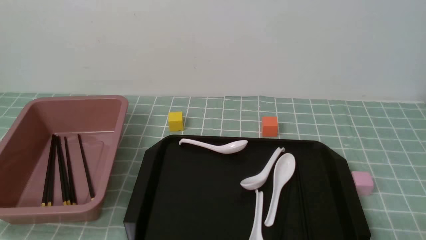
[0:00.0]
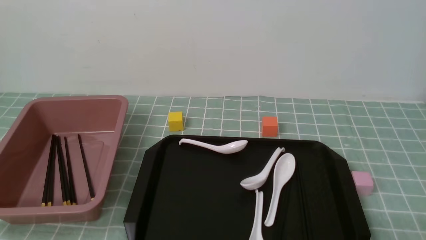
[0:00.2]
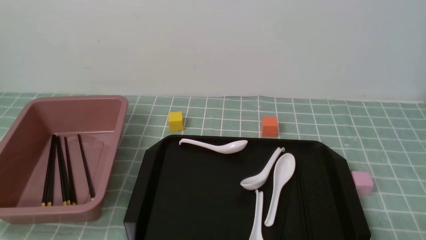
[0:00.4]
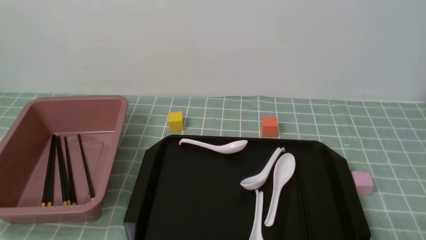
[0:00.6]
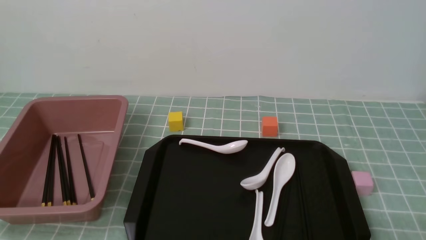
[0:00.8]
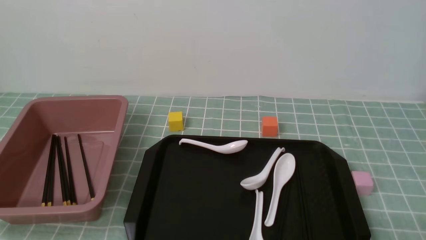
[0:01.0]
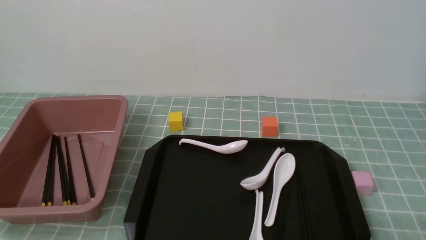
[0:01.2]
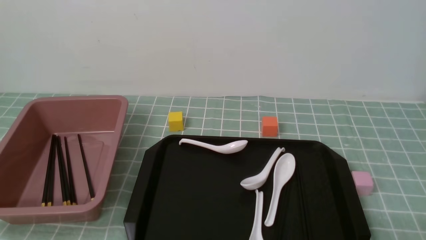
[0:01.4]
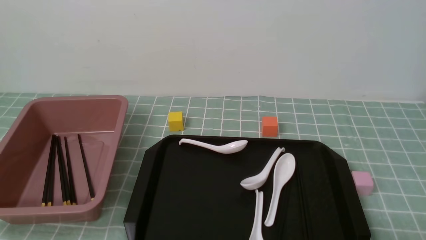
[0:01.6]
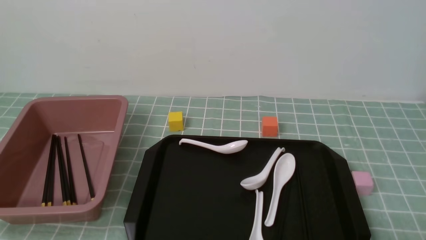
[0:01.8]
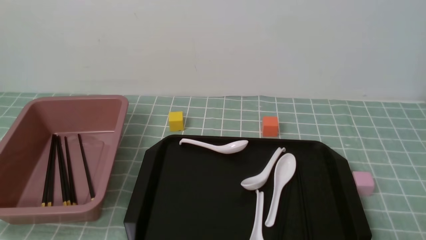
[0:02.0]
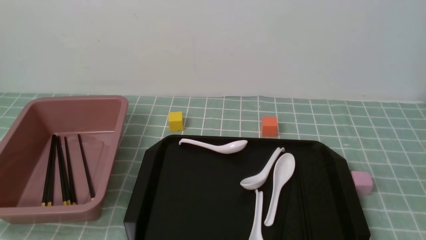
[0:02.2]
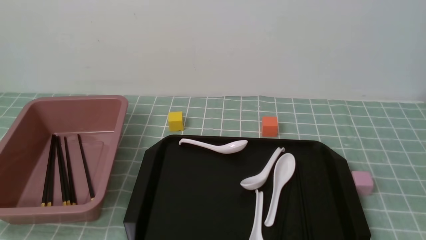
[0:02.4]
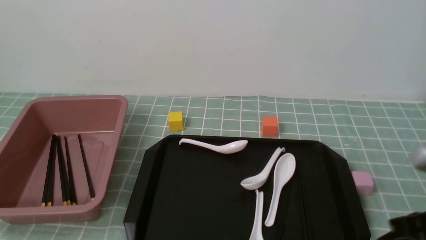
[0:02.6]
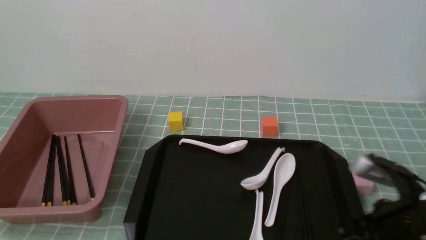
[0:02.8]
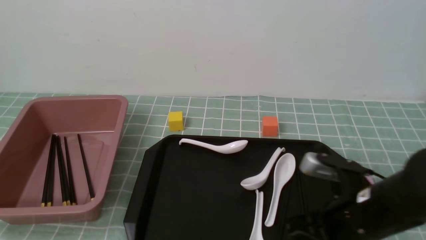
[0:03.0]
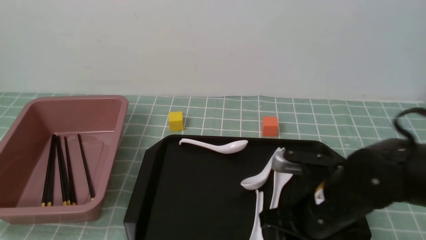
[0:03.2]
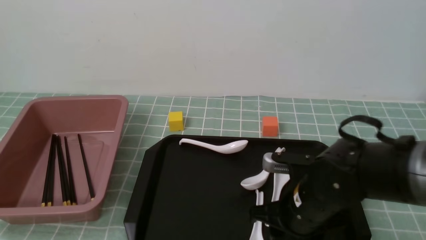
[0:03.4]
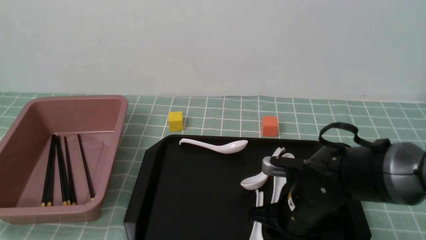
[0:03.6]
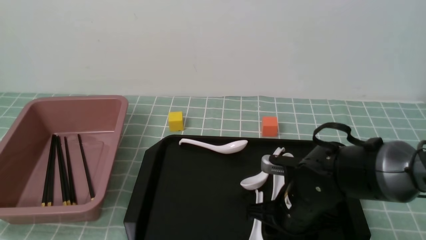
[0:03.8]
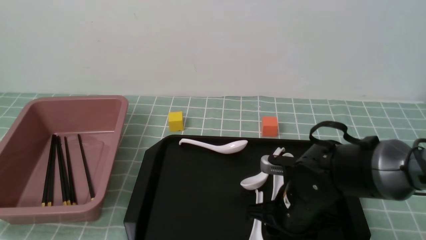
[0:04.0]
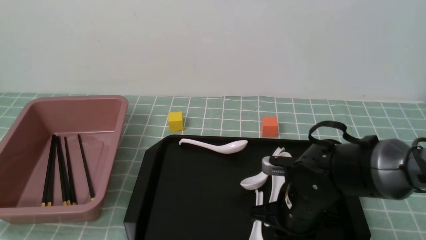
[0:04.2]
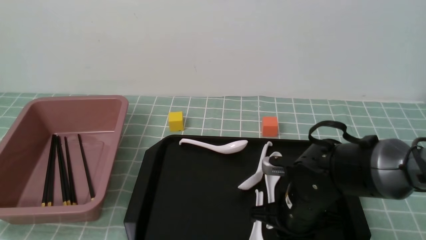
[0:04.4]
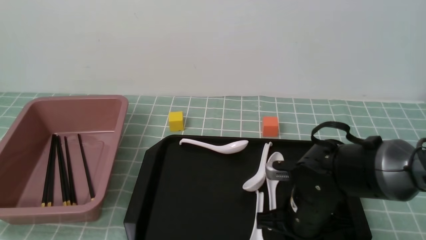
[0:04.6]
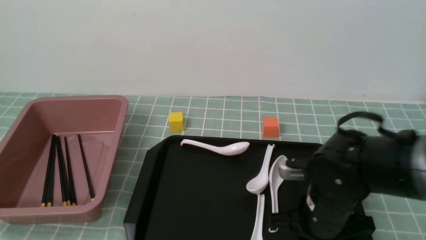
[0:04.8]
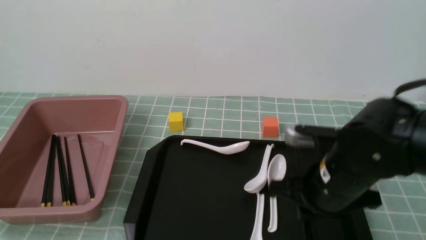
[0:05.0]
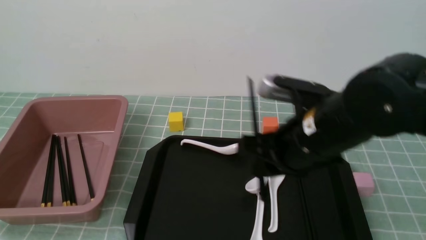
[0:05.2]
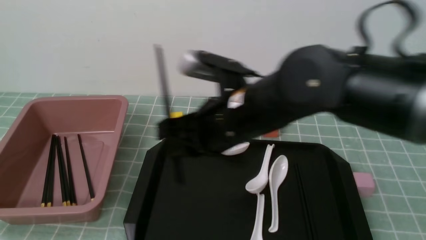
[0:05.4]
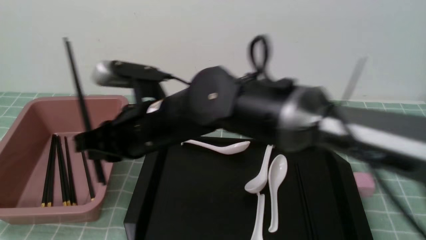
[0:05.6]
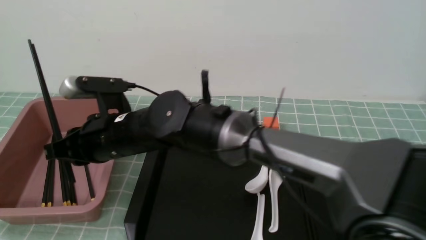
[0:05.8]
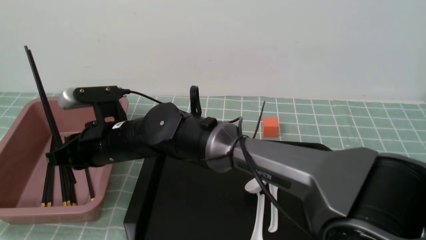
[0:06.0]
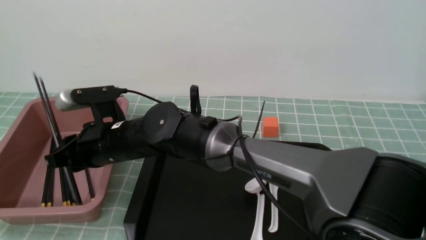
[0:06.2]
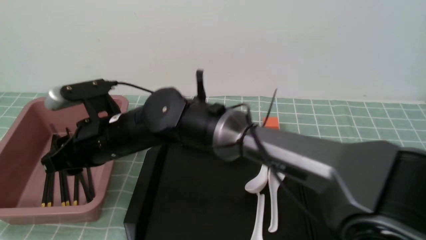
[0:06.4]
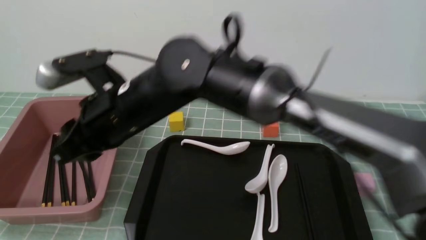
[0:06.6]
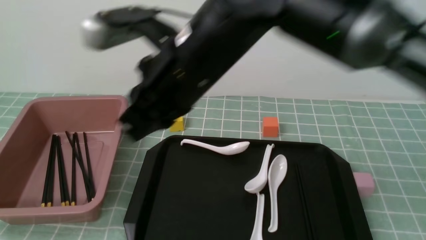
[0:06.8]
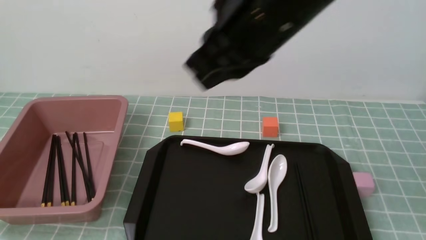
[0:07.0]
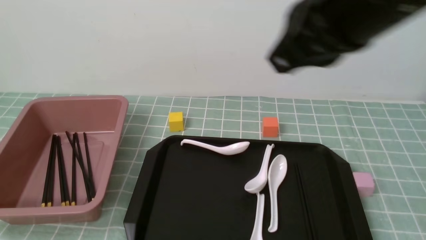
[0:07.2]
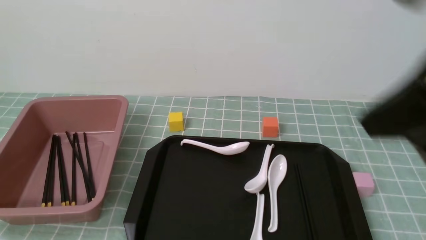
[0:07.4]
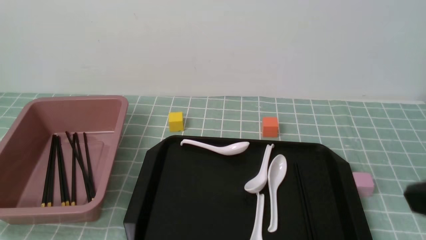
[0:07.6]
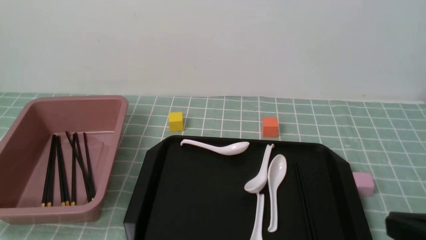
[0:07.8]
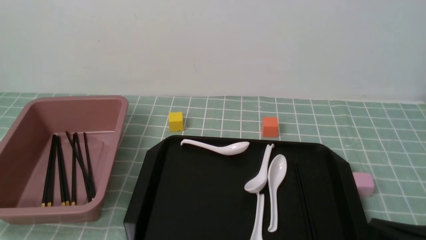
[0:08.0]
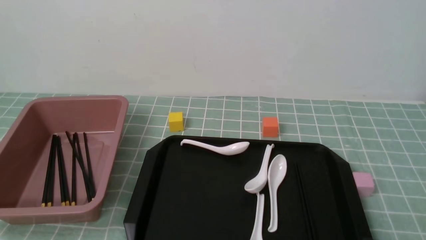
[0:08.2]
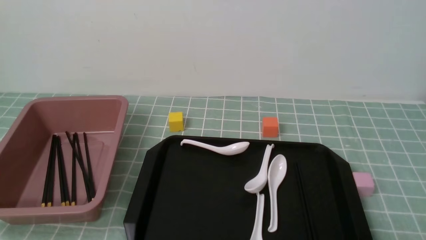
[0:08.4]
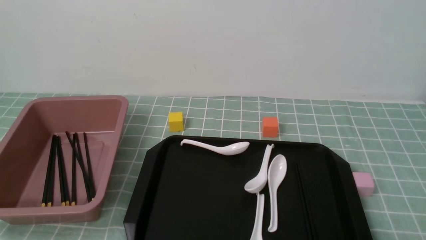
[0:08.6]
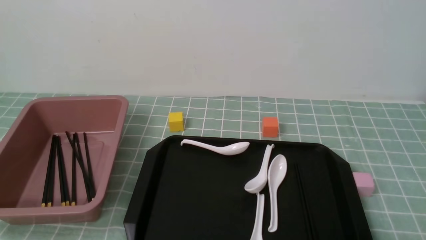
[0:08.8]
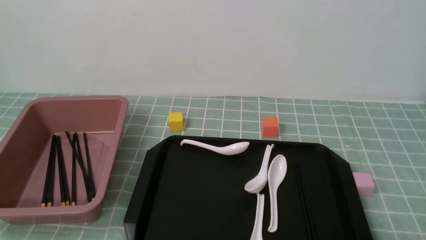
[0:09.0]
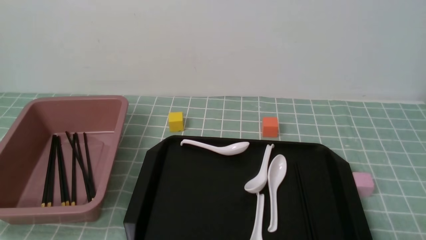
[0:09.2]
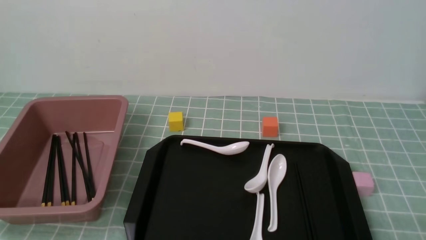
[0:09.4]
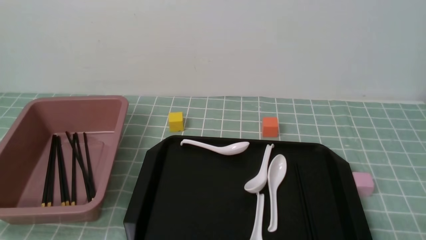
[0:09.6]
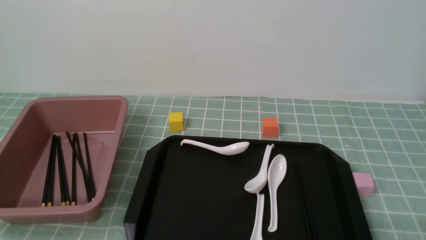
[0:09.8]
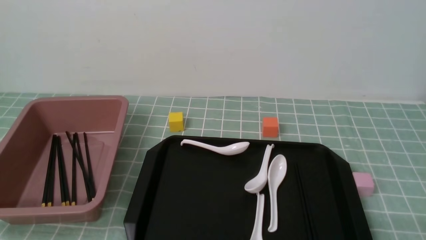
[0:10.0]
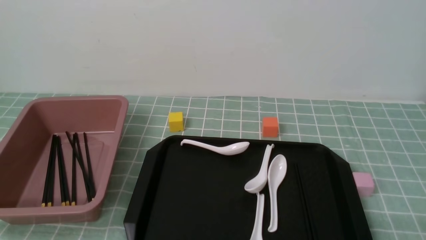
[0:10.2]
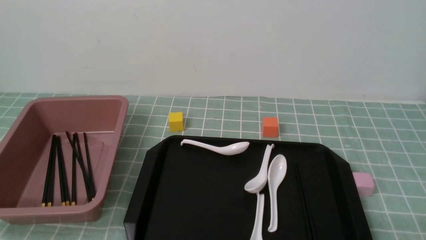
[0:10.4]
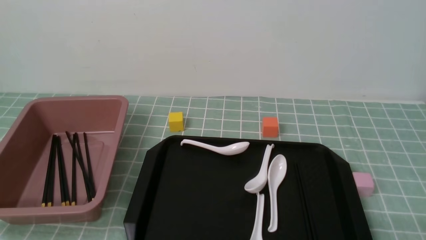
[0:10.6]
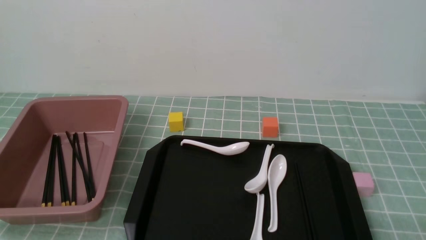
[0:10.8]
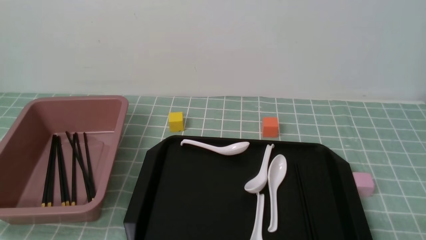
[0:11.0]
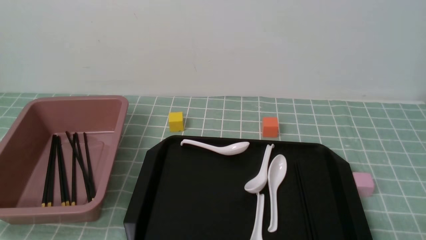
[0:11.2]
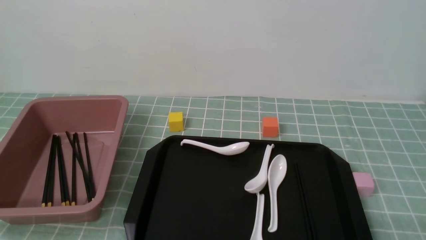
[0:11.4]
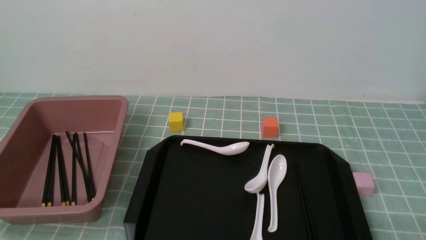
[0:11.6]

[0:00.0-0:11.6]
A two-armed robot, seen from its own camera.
Step, 0:00.0 to 0:05.0: use the right arm to grab a pair of chopsticks.
Step, 0:05.2 to 0:06.6: use the right arm to put the chopsticks into the lunch box.
0:01.4 to 0:02.8: The right gripper moves forward and to the left, about 15 cm, and closes up.
0:02.8 to 0:04.4: The right gripper goes approximately 15 cm to the left, downward and forward, and opens and closes again.
0:04.4 to 0:05.8: The right gripper heads to the left and upward, covering roughly 25 cm.
0:05.8 to 0:07.2: The right gripper heads to the right, upward and backward, covering some 35 cm, and closes up.
0:07.2 to 0:08.8: The right gripper shifts about 30 cm downward, to the right and backward.
0:10.2 to 0:11.6: Both grippers stay about where they are.
